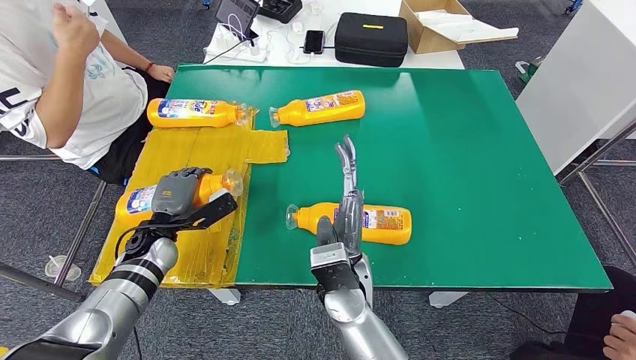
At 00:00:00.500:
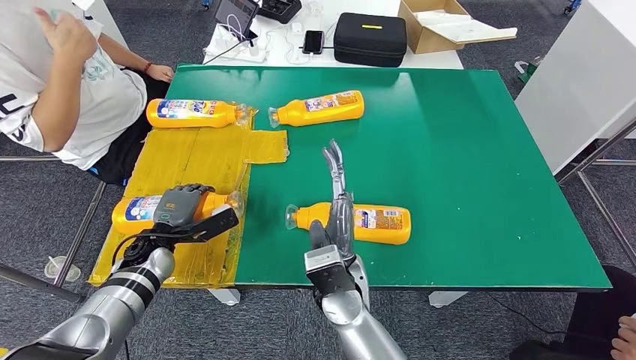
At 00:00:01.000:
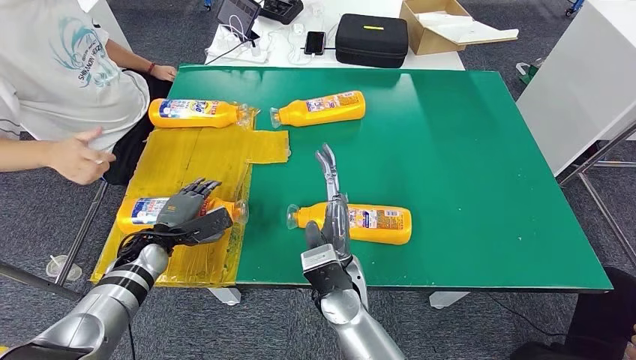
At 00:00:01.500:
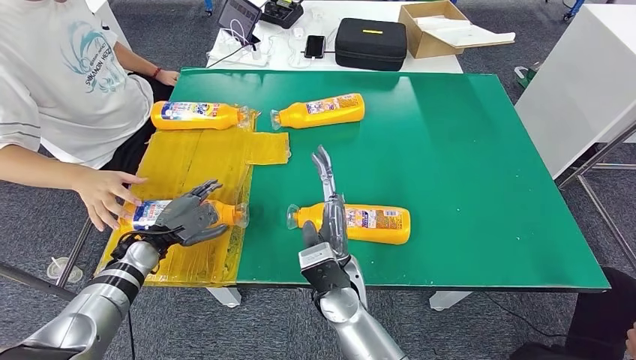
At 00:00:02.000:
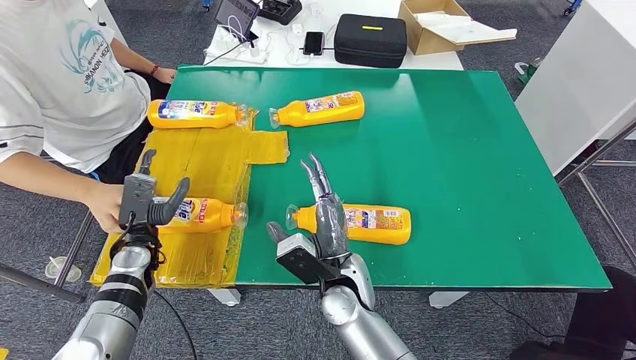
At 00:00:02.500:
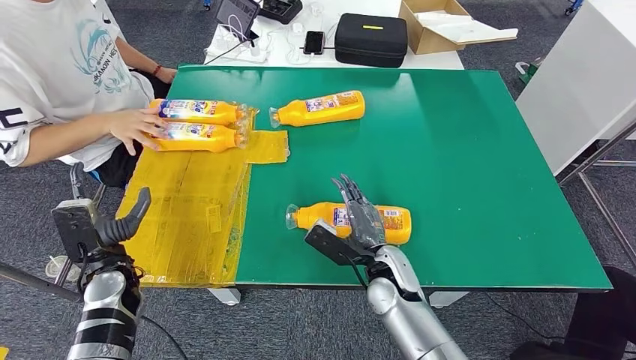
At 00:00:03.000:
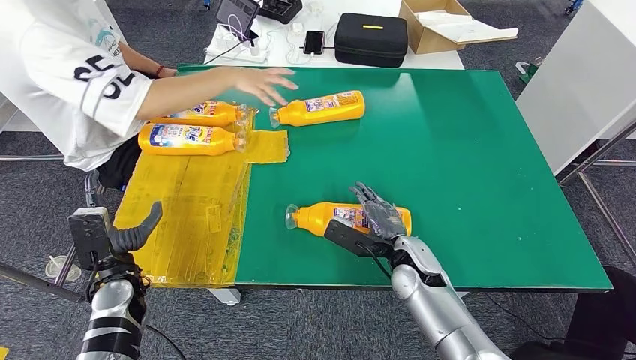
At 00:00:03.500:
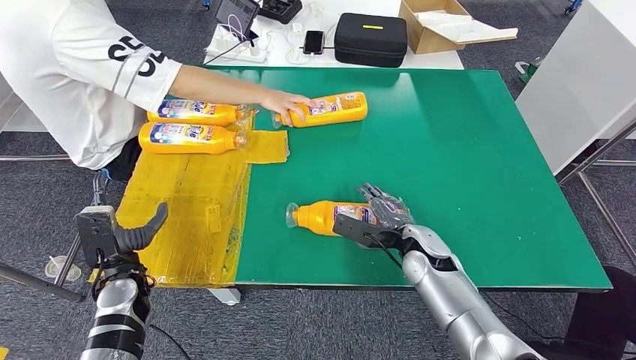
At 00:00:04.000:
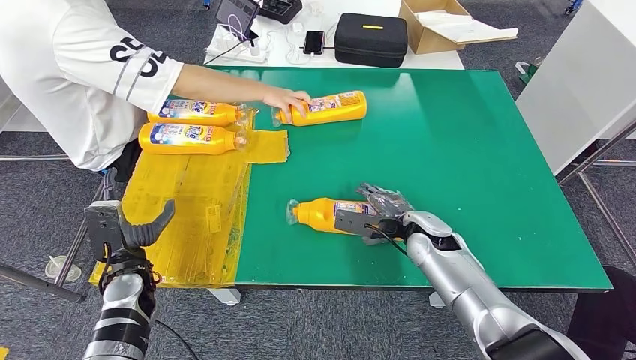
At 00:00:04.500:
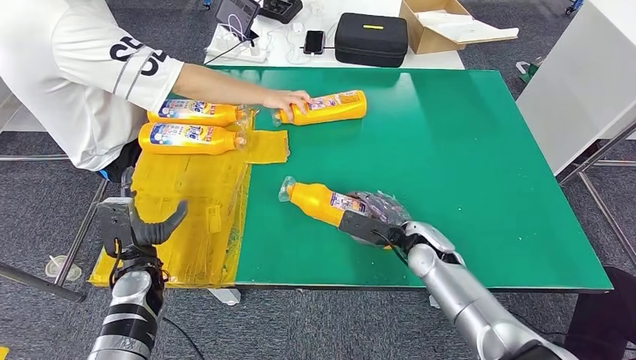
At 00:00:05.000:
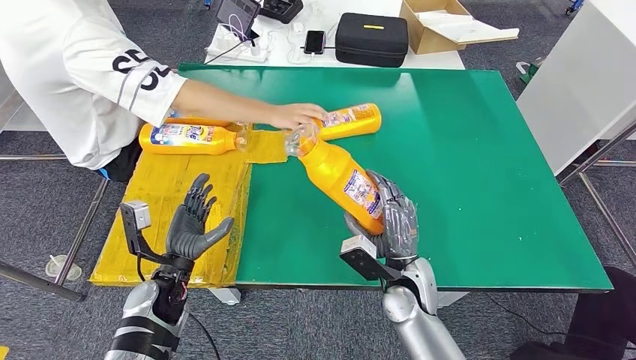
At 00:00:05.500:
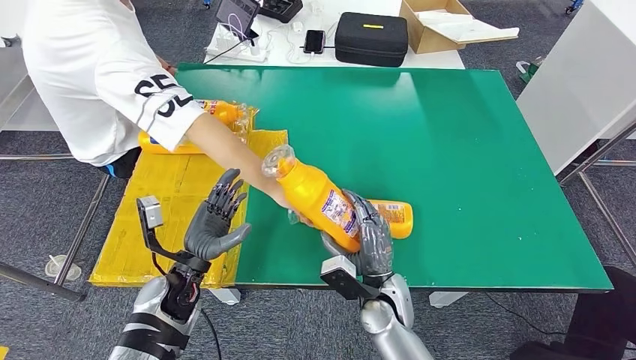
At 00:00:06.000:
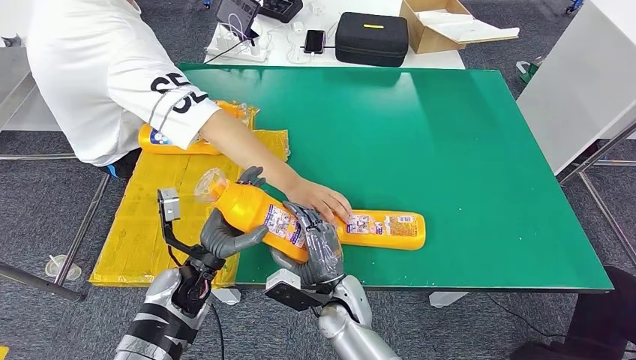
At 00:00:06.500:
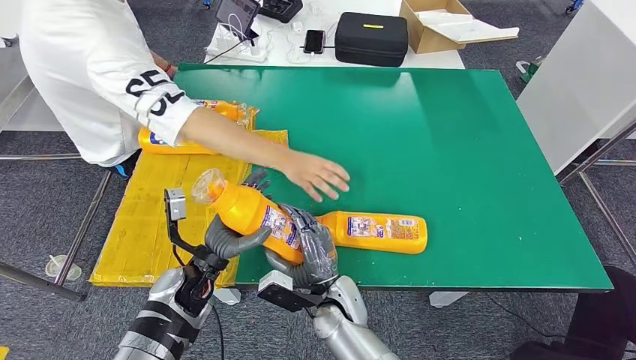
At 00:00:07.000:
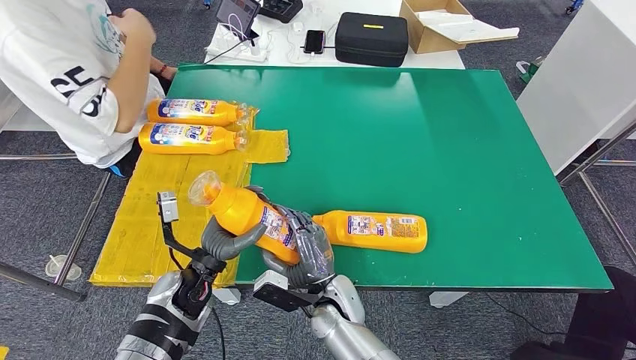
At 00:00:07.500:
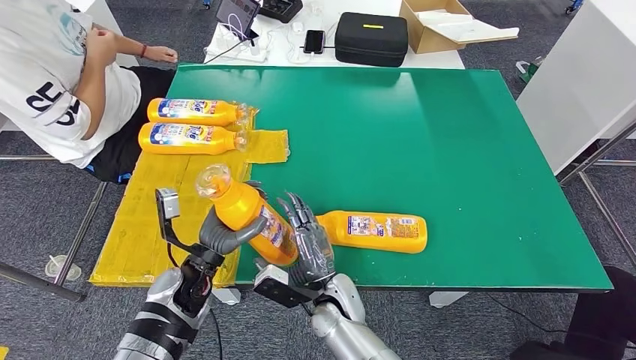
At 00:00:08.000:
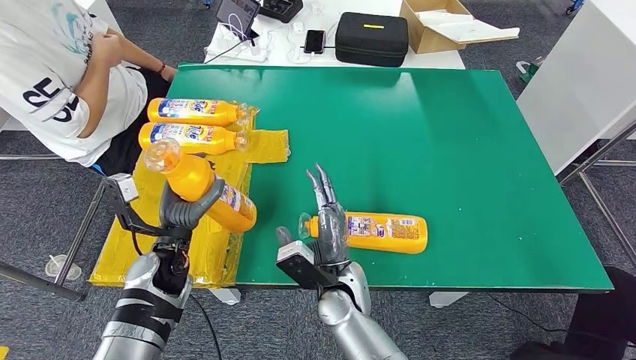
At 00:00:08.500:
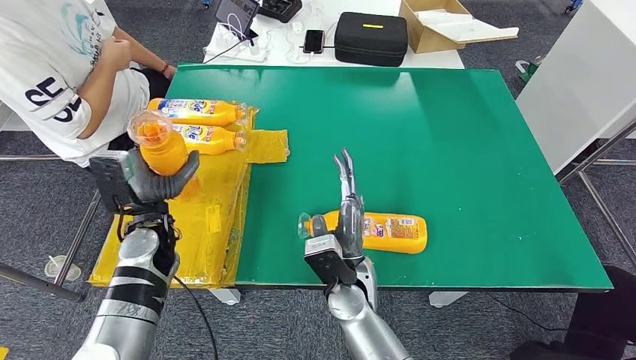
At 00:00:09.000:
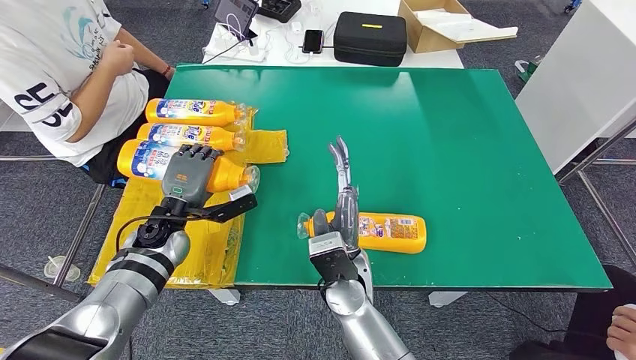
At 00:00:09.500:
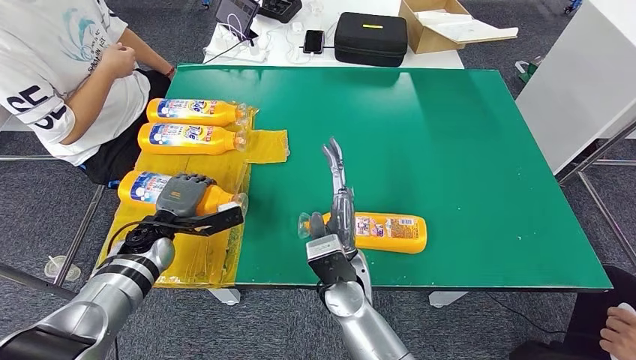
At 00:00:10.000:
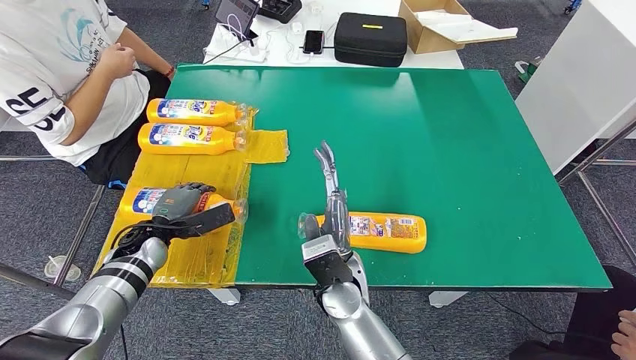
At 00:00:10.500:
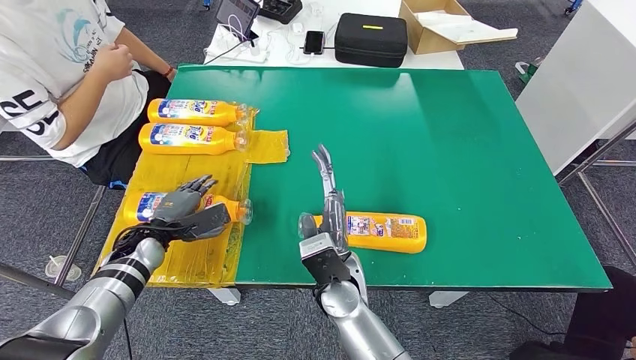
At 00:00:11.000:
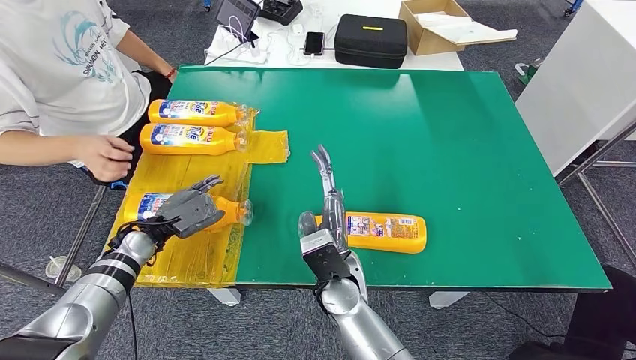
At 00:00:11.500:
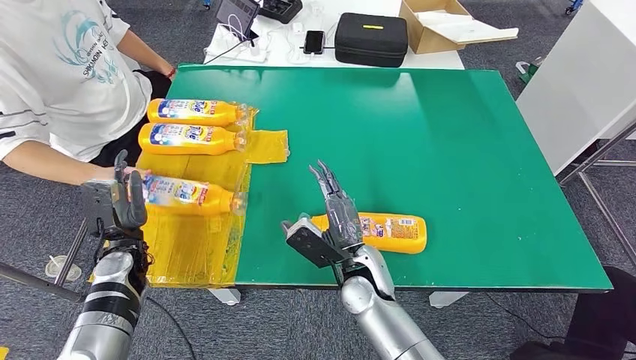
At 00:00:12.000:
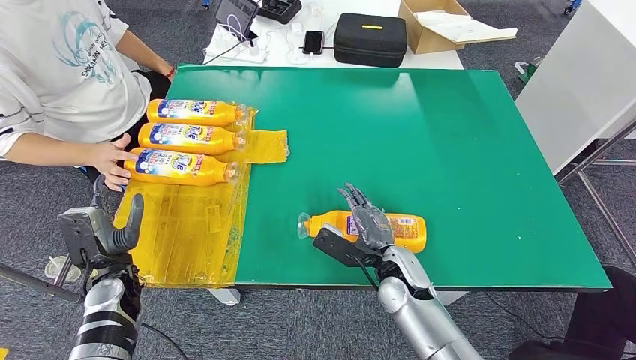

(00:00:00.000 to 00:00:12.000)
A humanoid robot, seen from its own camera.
Step, 00:00:00.000 - 00:00:02.000: Flip the fast-moving consumer goods bottle to the front side.
Step, 00:00:02.500 - 00:00:05.000: Pick up the fast-moving consumer goods bottle from the table.
Step, 00:00:05.500 - 00:00:11.500: Flip the fast-moving consumer goods bottle to the front side.
00:00:08.000 - 00:00:10.000: The left hand goes about 10 cm to the left.

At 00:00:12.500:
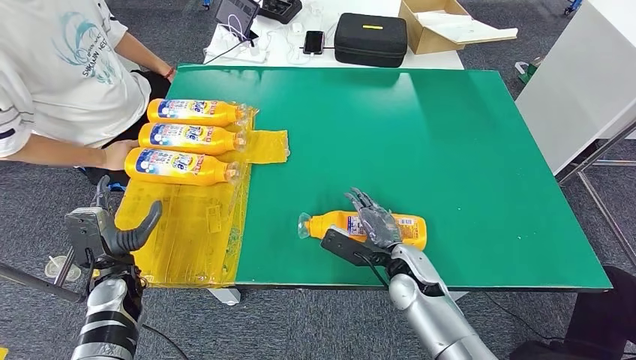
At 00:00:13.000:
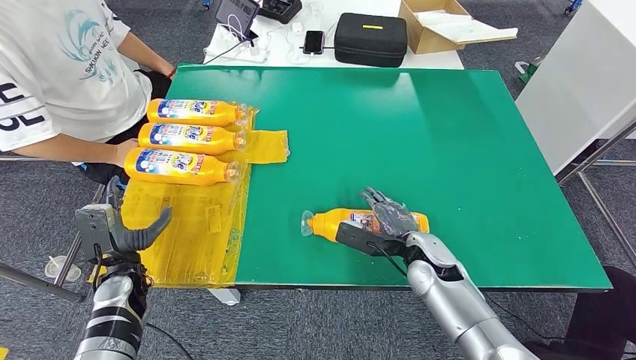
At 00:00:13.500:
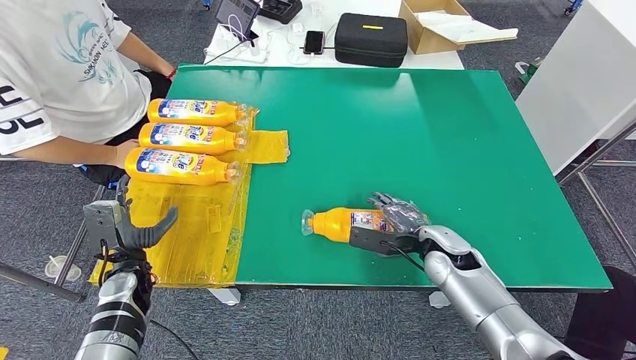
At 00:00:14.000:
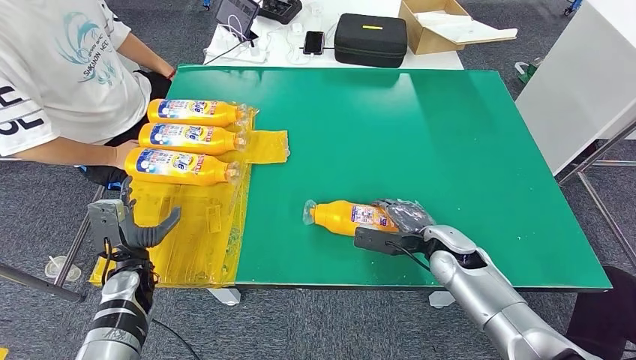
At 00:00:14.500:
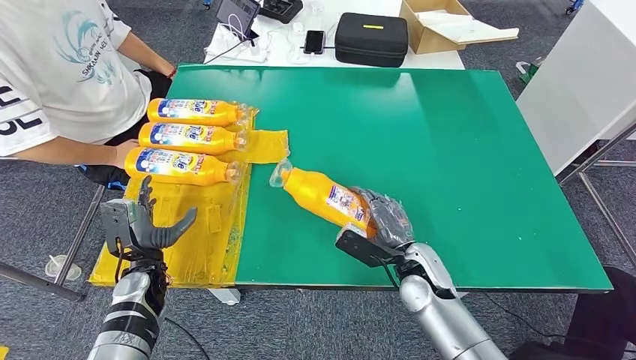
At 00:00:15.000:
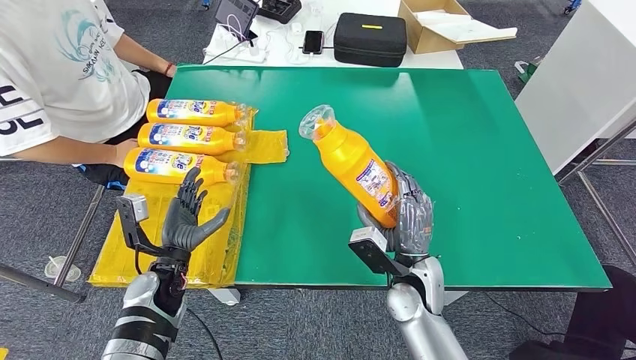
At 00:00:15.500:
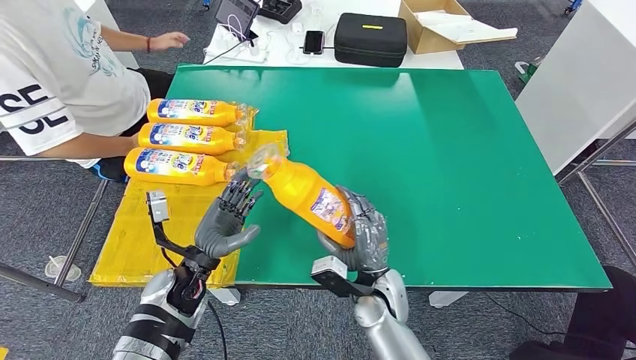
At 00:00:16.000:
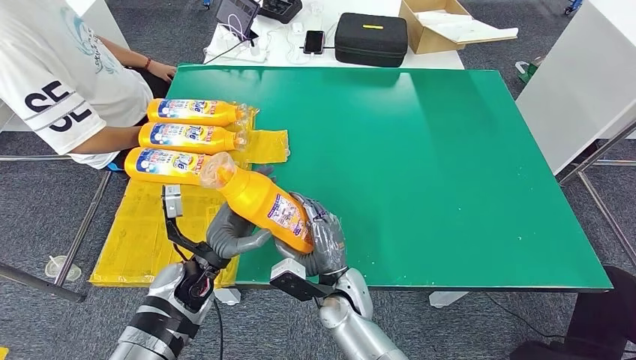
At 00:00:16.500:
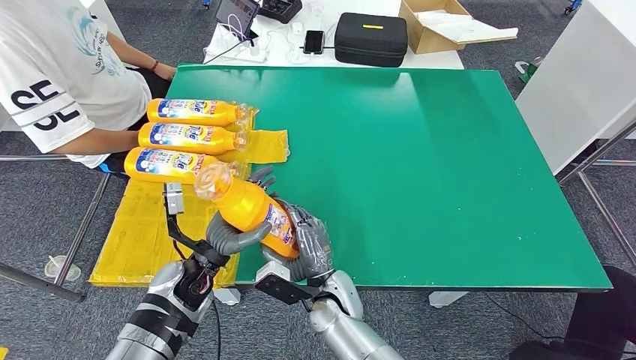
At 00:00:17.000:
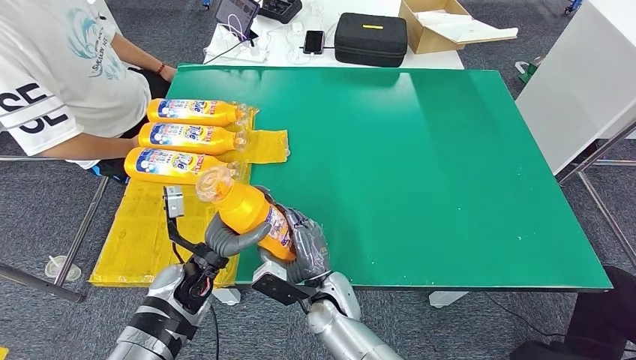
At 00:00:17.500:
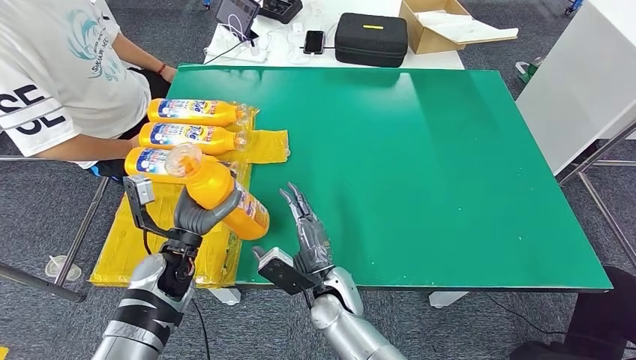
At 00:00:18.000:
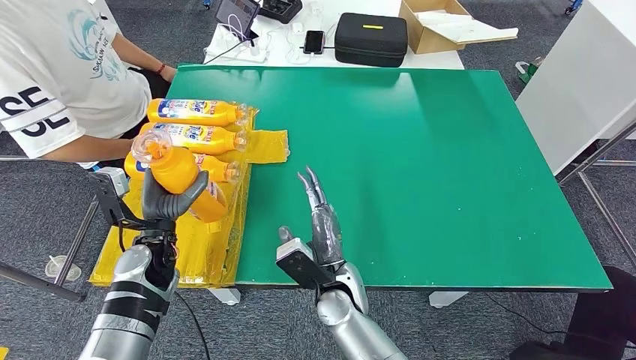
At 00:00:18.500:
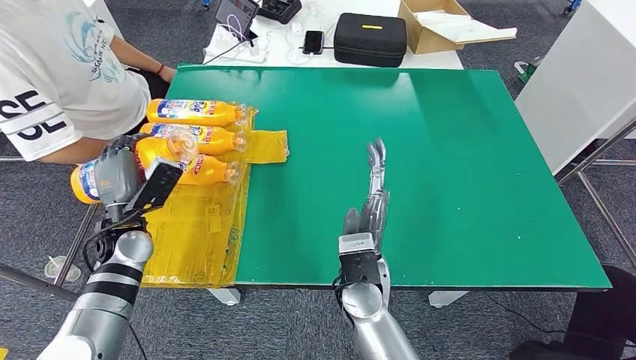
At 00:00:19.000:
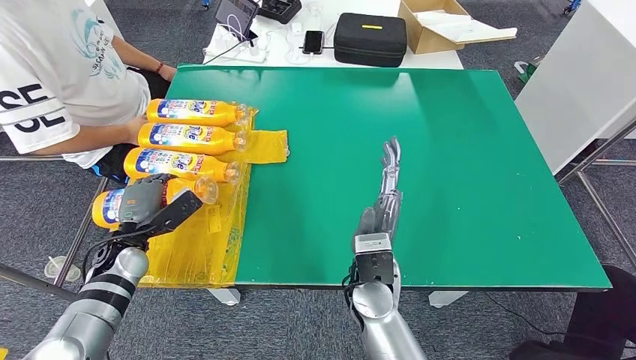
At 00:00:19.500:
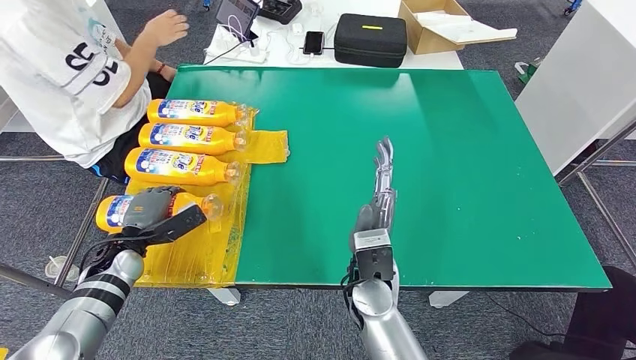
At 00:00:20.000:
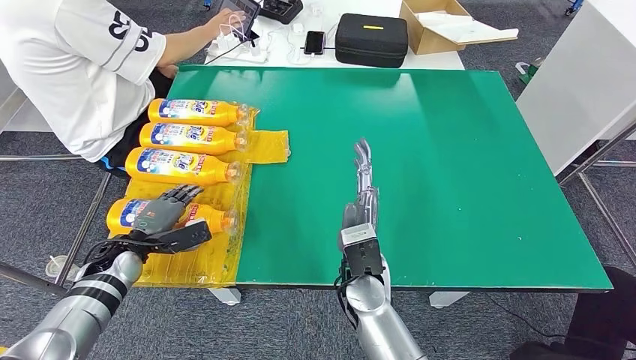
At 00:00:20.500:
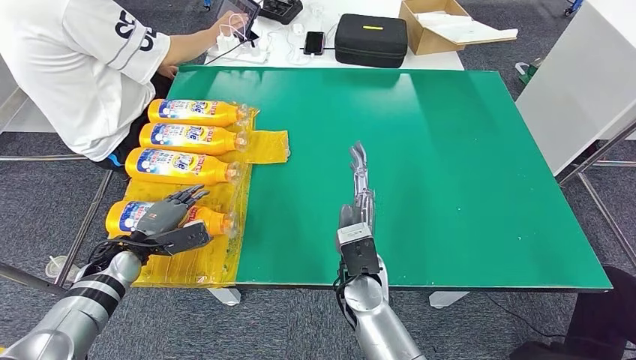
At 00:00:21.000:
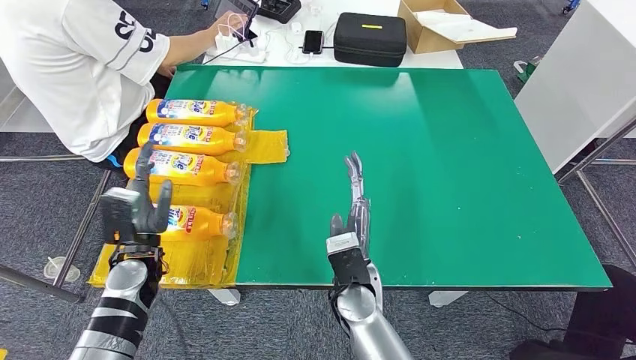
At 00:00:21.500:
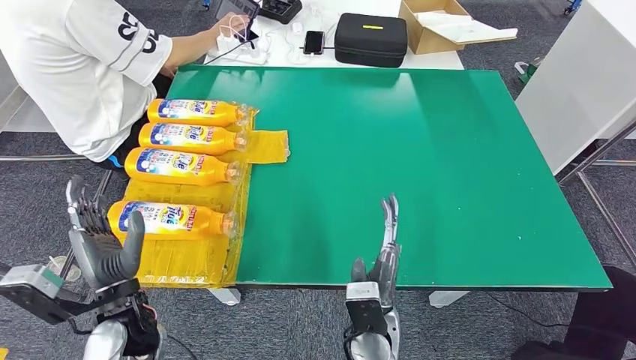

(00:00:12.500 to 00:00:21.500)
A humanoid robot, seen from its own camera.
Step, 00:00:12.500 - 00:00:15.000: Pick up the fast-moving consumer goods bottle from the table.
Step, 00:00:15.500 - 00:00:21.500: Flip the fast-moving consumer goods bottle to the front side.
00:00:12.500 - 00:00:14.500: The right hand reaches some 10 cm to the right, then returns.
